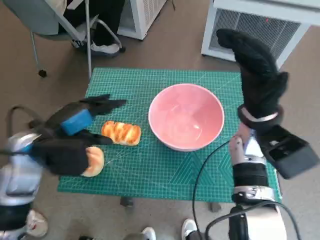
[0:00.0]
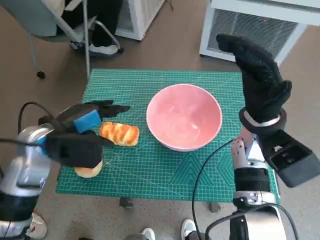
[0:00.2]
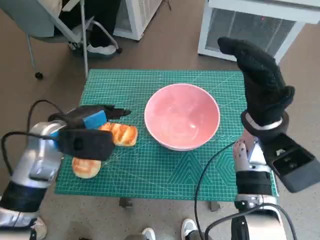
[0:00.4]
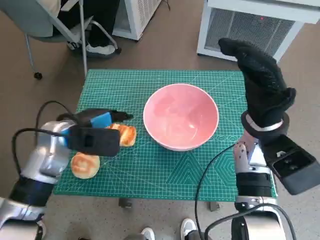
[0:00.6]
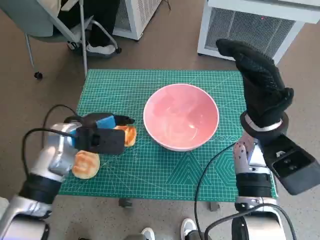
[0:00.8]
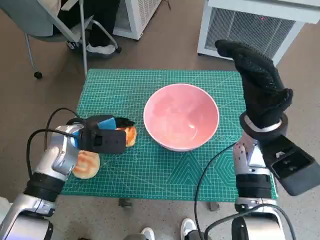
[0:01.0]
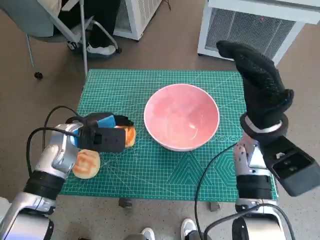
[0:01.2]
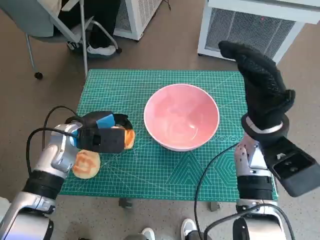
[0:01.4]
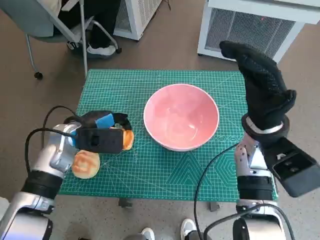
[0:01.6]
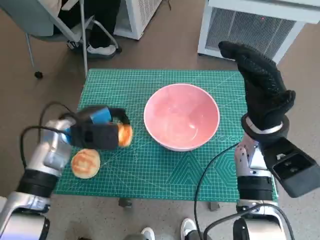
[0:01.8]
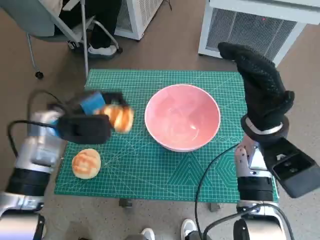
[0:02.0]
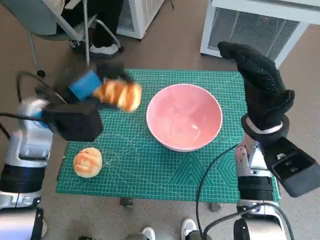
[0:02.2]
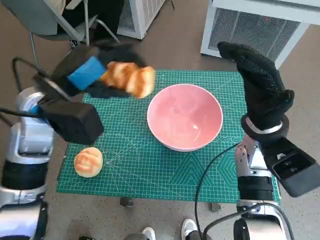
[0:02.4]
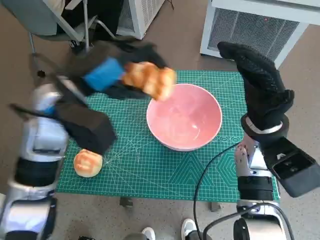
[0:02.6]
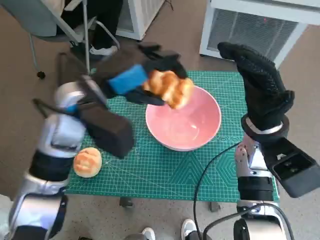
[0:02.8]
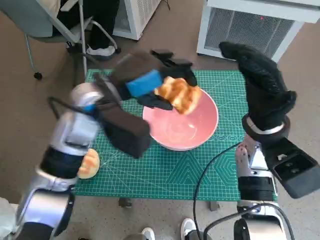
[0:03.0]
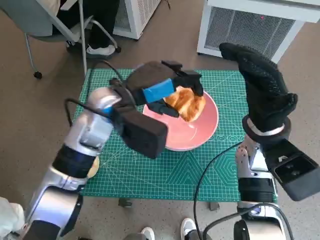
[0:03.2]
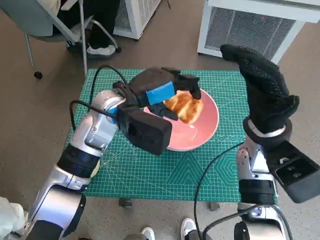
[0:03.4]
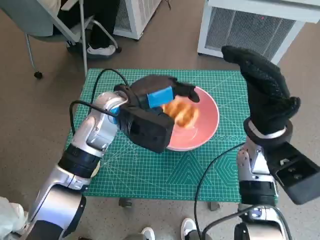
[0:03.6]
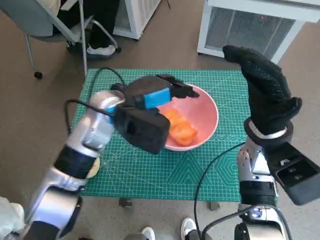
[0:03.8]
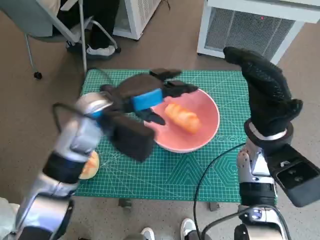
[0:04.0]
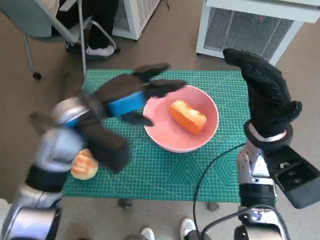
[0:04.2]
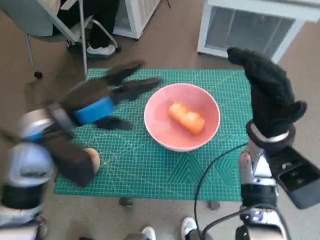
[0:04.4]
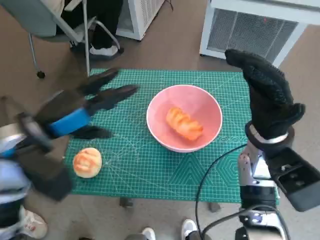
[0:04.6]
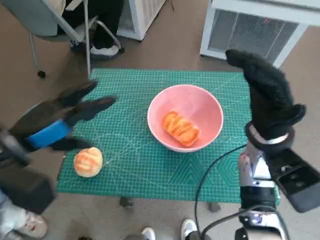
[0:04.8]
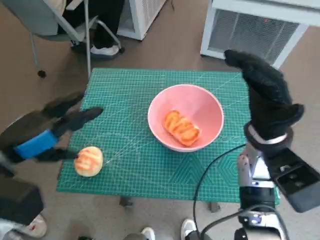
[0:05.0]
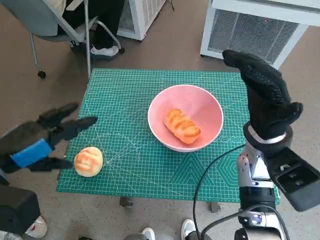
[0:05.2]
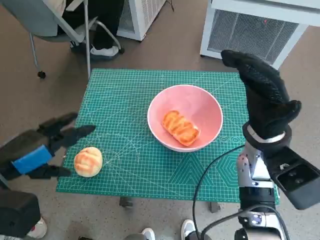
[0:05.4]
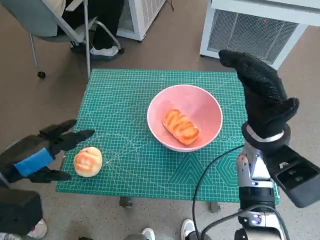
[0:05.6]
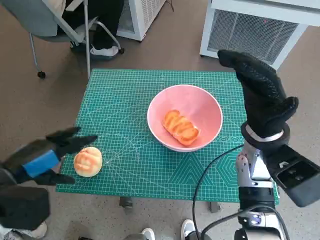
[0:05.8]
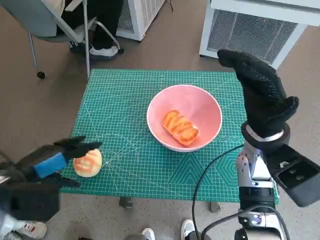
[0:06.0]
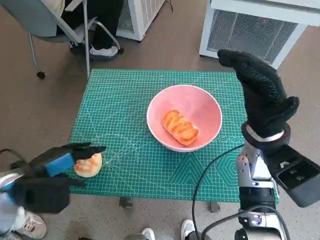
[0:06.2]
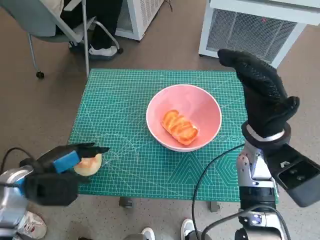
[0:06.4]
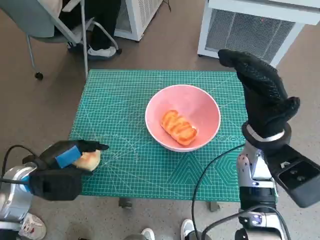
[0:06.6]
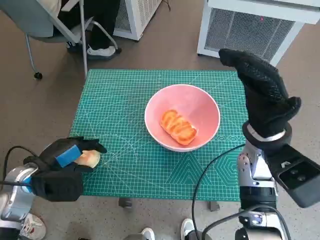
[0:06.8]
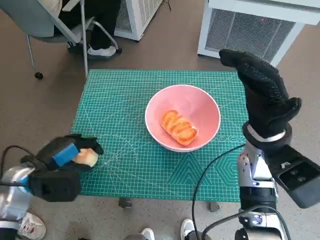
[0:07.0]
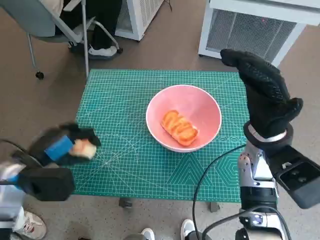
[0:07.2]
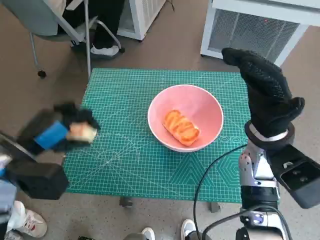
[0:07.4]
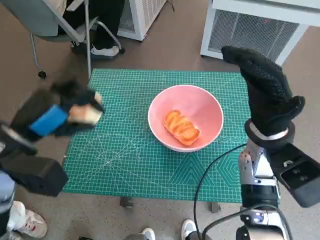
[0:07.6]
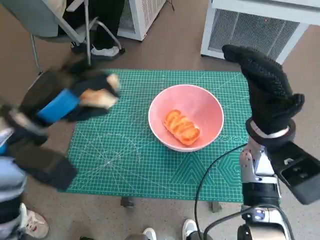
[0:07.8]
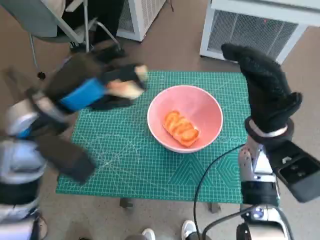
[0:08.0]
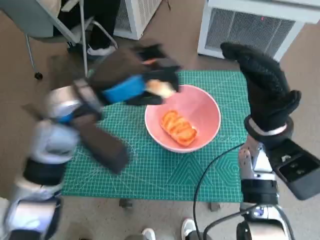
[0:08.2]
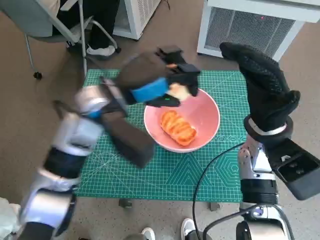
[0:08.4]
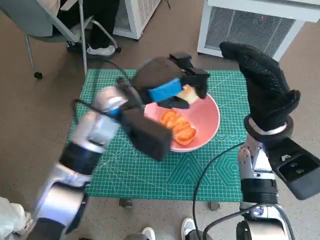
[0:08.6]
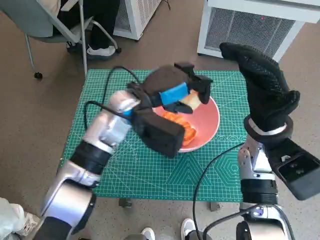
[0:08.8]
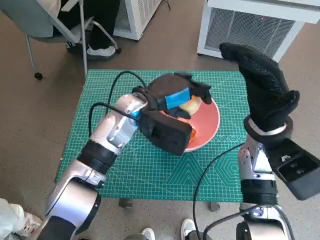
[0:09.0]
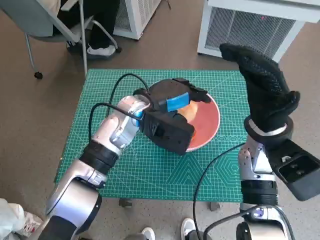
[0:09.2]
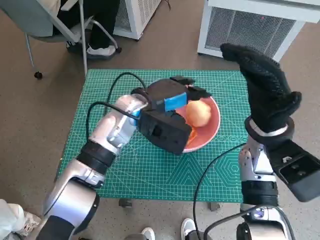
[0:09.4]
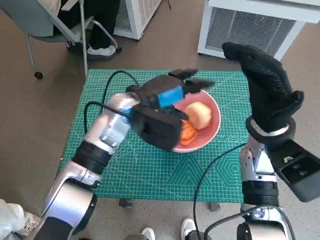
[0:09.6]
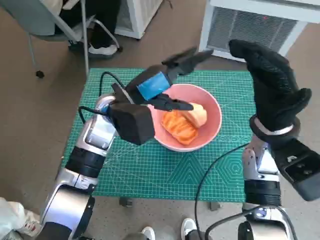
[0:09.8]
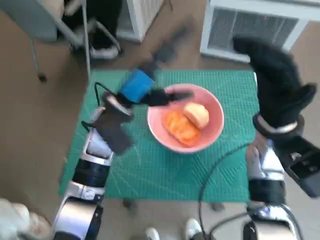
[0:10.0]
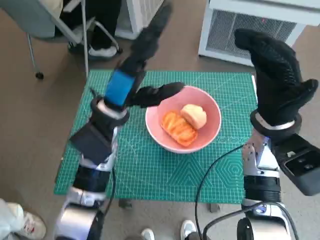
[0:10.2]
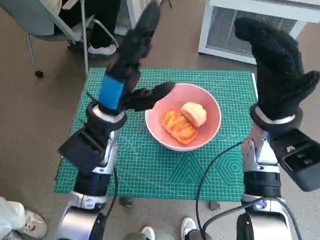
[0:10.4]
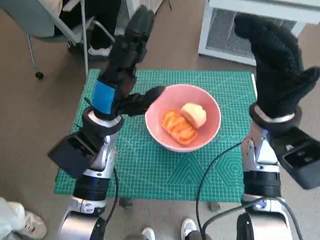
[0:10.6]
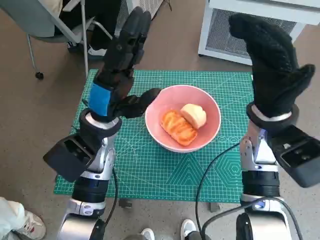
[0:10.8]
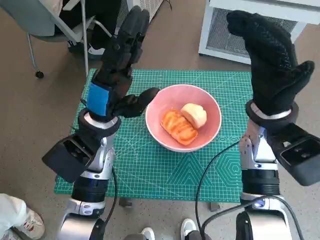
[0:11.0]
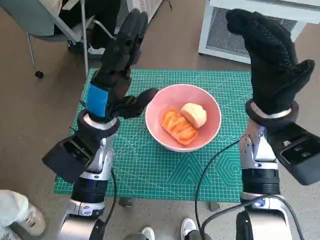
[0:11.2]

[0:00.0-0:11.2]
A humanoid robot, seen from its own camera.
Task of the whole recording: Push the bowl to the center of the table and put the bread into the bowl.
Step, 0:00.0 to 0:01.2: Grasp the long bread with left hand.
Step, 0:01.4 to 0:04.0: Place the long bread in pink bowl with left hand.
Step, 0:04.2 to 0:06.8: Grasp the round bread with left hand.
Step, 0:07.0 to 0:09.6: Place the round bread in pink bowl with left hand.
0:00.0 to 0:01.6: The left hand shifts some 10 cm downward and forward.
0:01.6 to 0:03.2: The left hand travels to the right and upward by approximately 15 cm.
0:03.2 to 0:04.8: The left hand moves to the left and backward, about 15 cm.
0:04.8 to 0:06.4: The left hand shifts about 10 cm downward.
0:06.4 to 0:08.0: The left hand goes some 15 cm upward, to the right and forward.
0:08.0 to 0:09.6: The left hand heads to the right, forward and downward, covering roughly 15 cm.
0:09.6 to 0:11.2: The left hand goes about 5 cm to the left.

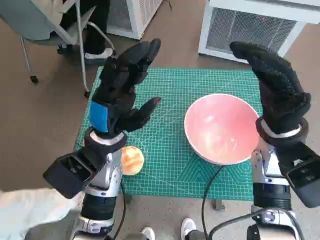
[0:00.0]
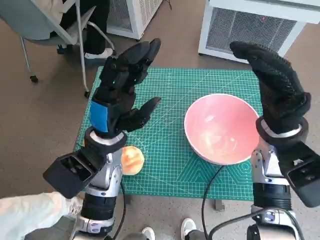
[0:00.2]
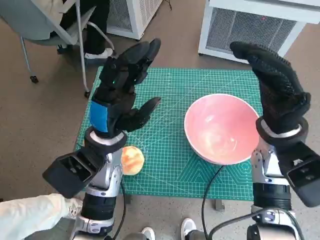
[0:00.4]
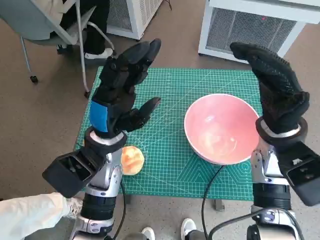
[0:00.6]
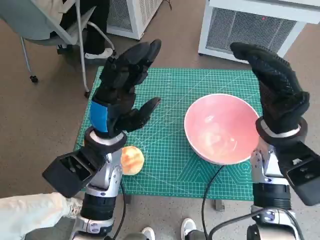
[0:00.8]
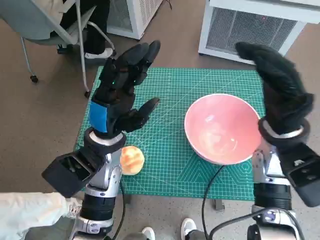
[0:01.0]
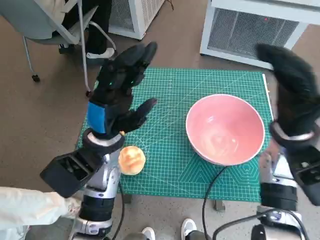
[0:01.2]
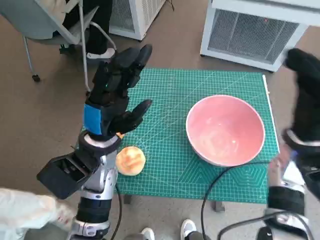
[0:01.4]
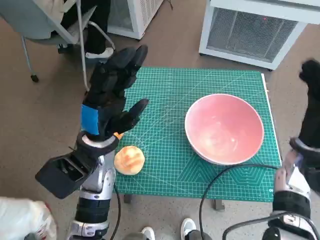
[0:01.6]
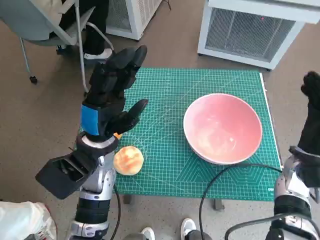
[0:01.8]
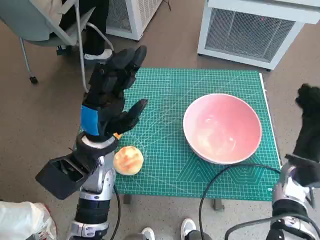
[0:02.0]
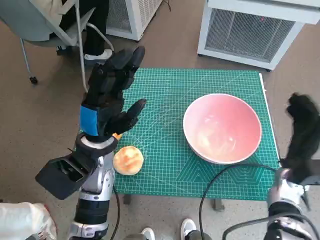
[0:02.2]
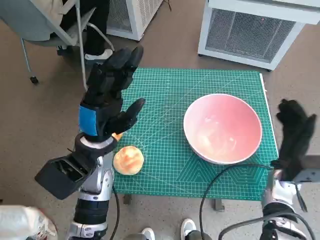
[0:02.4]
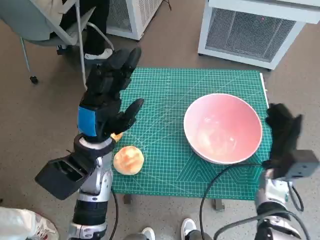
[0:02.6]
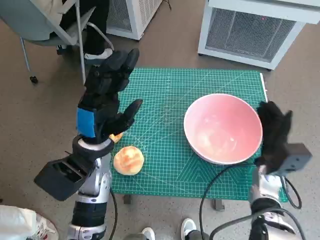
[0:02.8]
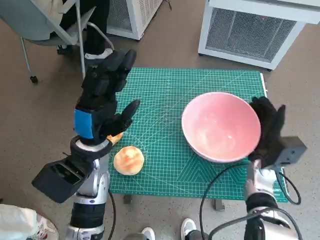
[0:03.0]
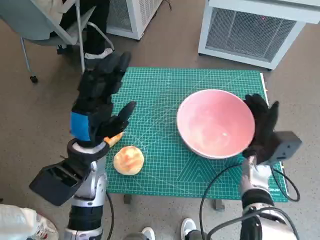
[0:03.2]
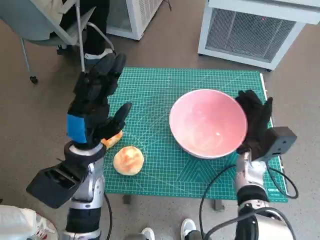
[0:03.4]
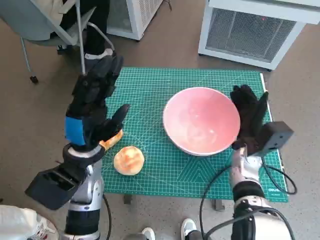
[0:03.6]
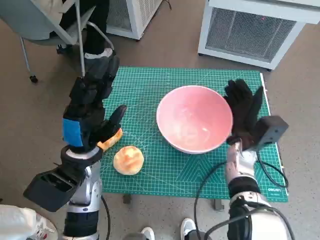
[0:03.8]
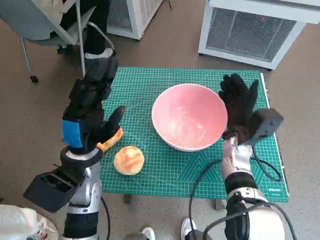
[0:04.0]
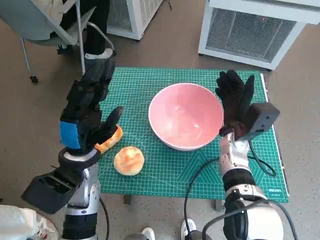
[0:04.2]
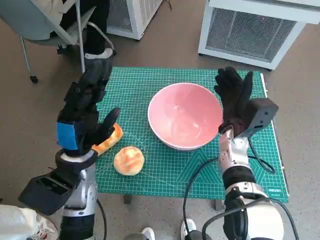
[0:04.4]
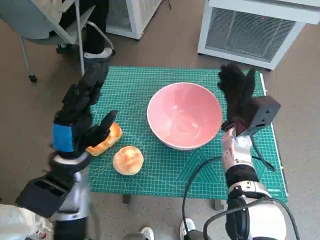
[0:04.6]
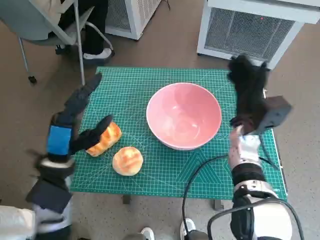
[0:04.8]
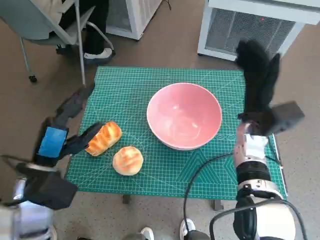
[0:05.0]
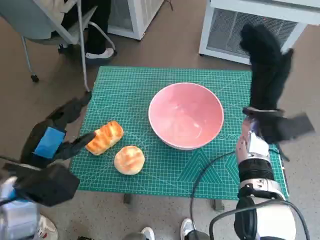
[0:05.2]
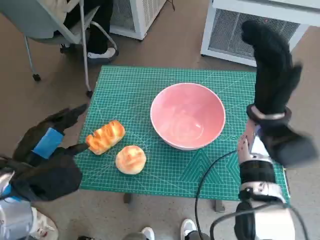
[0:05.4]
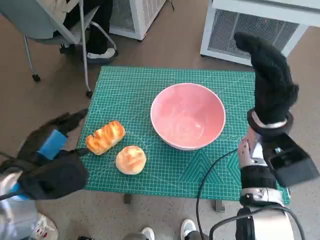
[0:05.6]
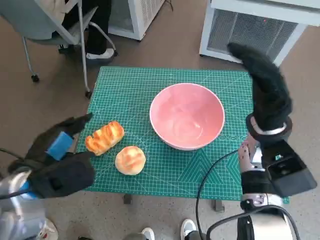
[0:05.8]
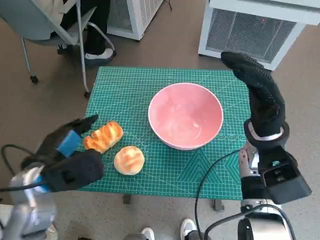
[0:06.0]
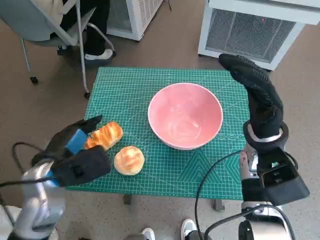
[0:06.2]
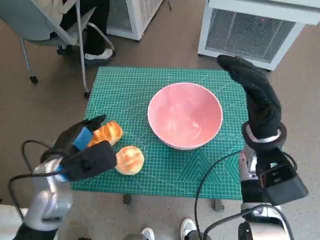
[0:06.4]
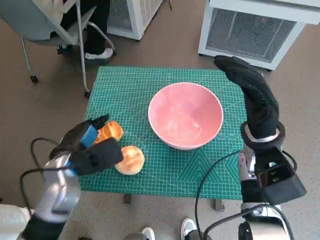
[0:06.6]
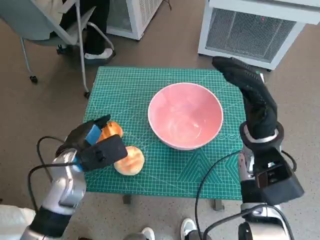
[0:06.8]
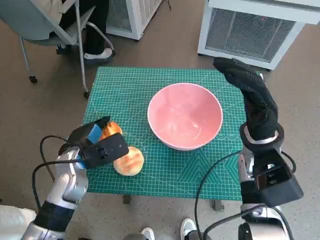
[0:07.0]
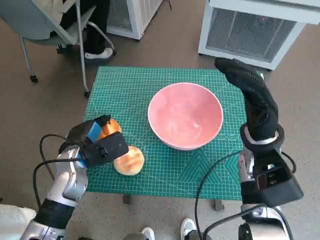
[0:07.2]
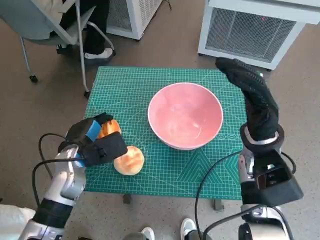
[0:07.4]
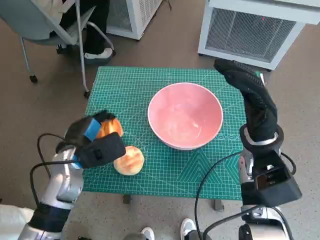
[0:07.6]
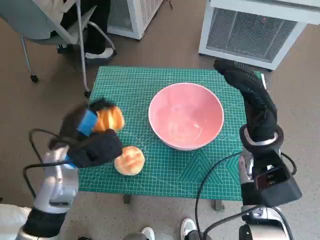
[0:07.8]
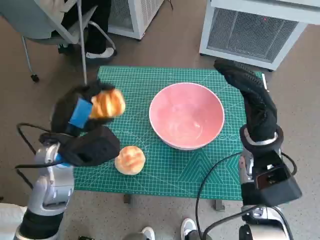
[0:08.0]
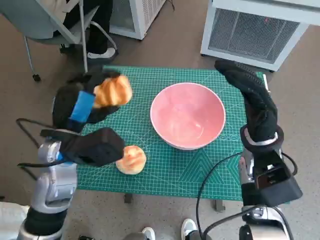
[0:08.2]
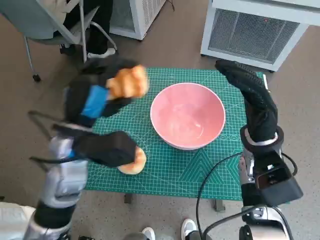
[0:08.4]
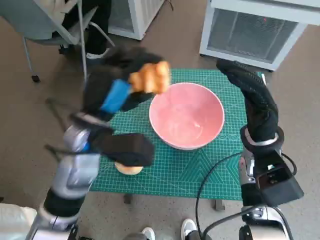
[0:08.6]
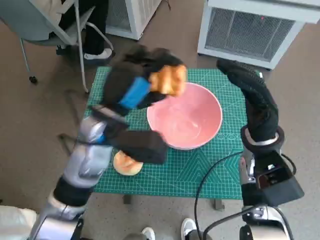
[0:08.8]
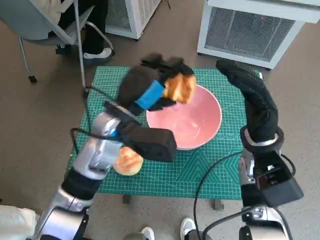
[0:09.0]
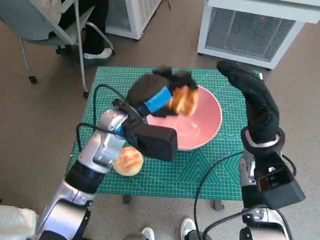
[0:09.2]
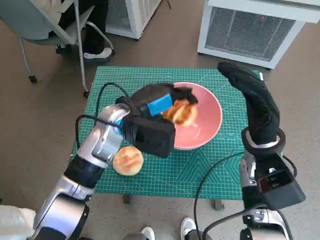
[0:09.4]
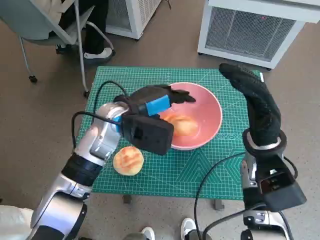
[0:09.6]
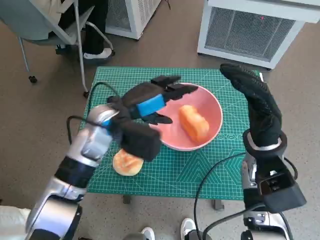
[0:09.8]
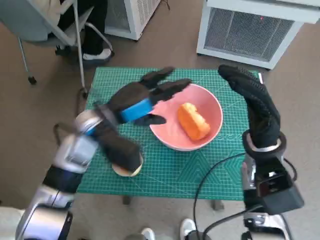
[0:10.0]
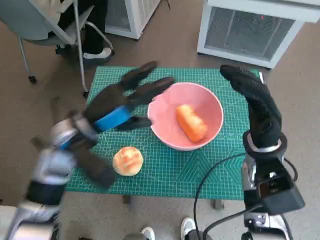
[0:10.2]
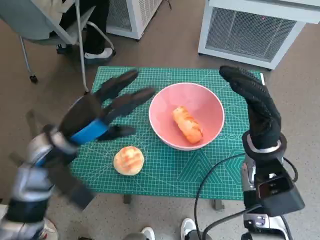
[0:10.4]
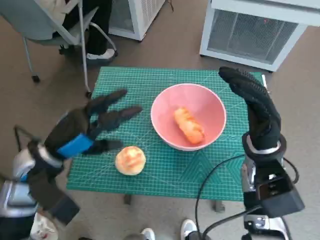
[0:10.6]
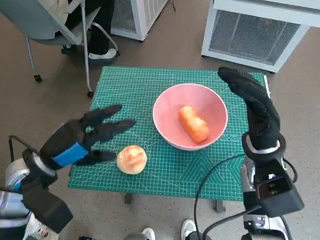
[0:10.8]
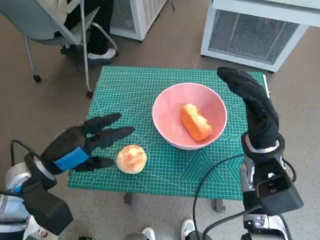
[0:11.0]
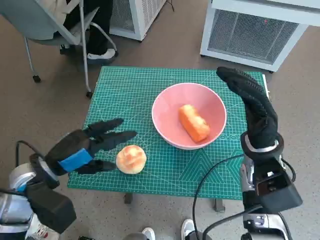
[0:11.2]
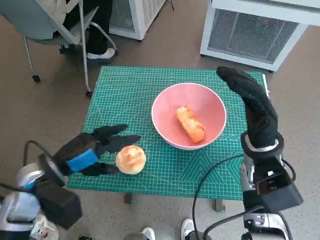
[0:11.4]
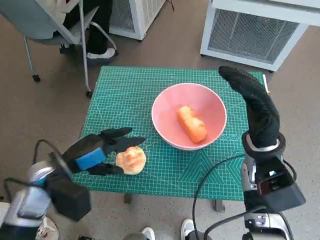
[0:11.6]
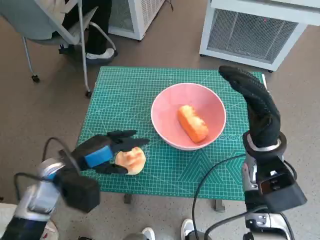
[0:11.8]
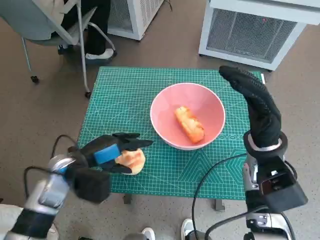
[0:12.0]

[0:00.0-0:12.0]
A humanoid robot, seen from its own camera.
Task of the whole recording: Push the bowl to the center of the table and put the bread into the bowl.
Step, 0:00.0 to 0:04.6: Move the pink bowl to the center of table with right hand.
Step, 0:04.8 to 0:07.4: Grasp the long bread with left hand.
Step, 0:07.6 to 0:09.6: Place the long bread in pink bowl with left hand.
0:01.6 to 0:03.0: The right hand travels downward by some 10 cm.
0:03.0 to 0:04.4: The right hand moves to the left and upward, about 10 cm.
0:04.4 to 0:06.0: The right hand heads upward, covering some 5 cm. Meanwhile the left hand moves to the left, about 5 cm.
0:06.0 to 0:07.6: The left hand goes approximately 10 cm forward and downward.
0:07.6 to 0:09.0: The left hand heads to the right and upward, covering some 15 cm.
0:09.0 to 0:10.4: The left hand shifts roughly 10 cm to the left.
0:10.4 to 0:12.0: The left hand shifts about 5 cm downward.
